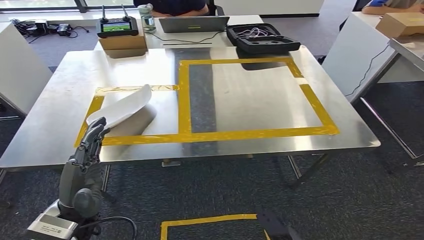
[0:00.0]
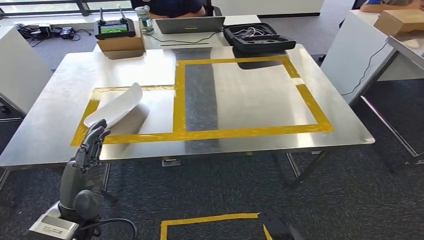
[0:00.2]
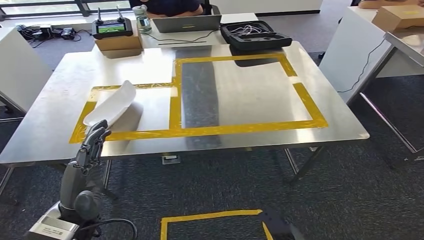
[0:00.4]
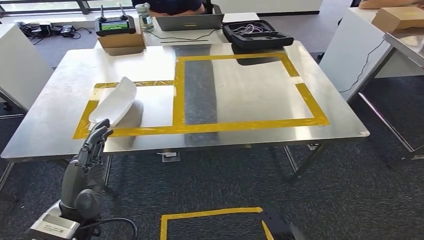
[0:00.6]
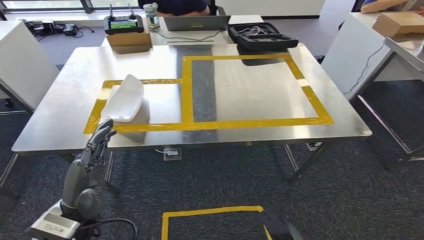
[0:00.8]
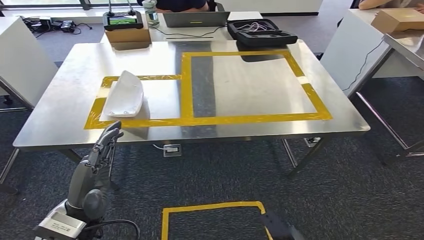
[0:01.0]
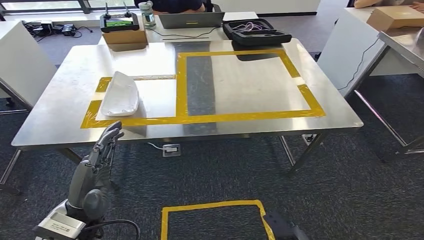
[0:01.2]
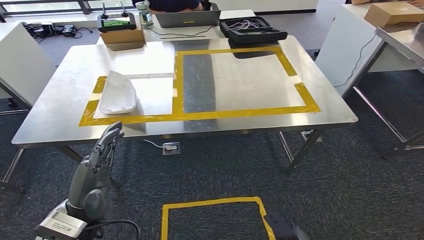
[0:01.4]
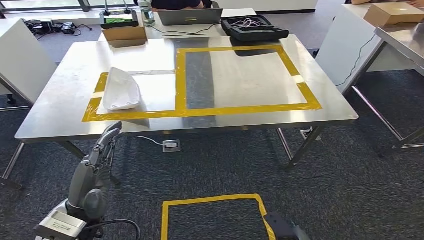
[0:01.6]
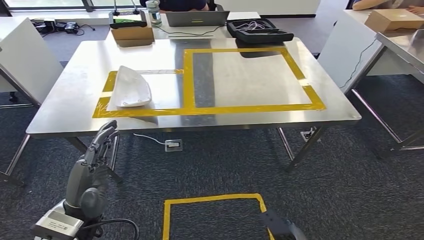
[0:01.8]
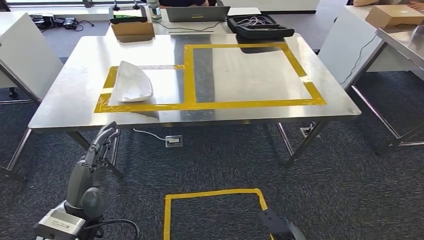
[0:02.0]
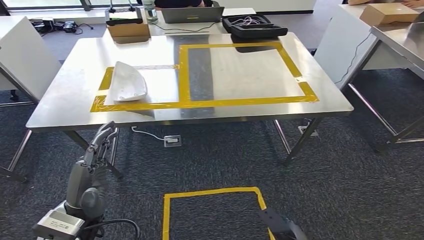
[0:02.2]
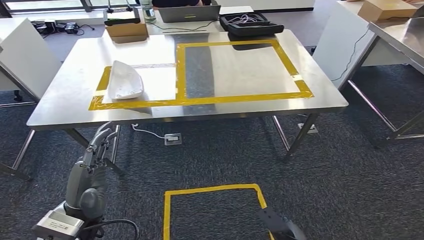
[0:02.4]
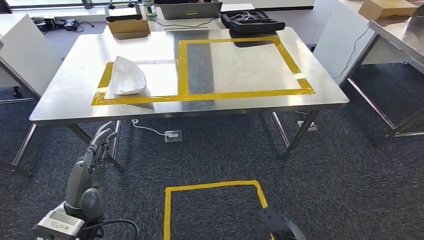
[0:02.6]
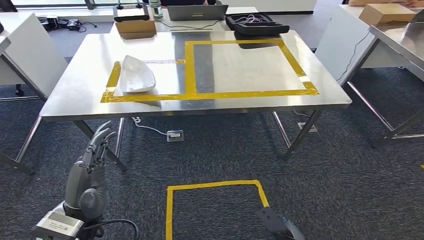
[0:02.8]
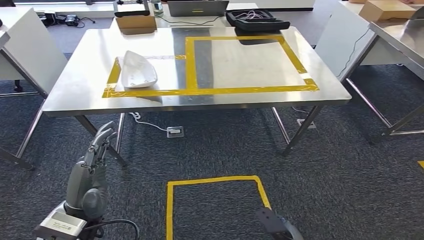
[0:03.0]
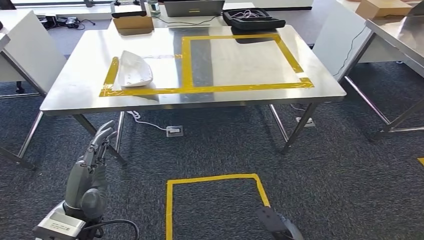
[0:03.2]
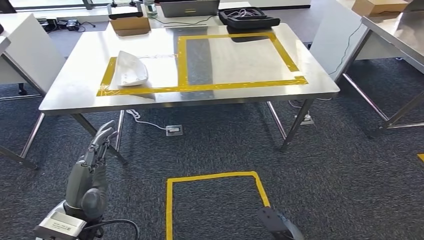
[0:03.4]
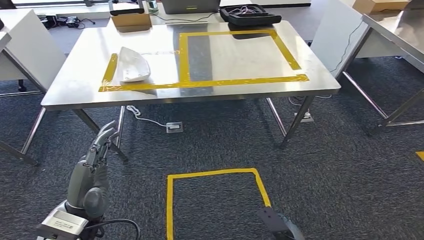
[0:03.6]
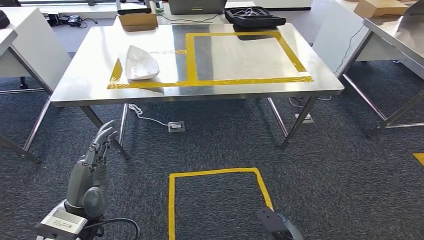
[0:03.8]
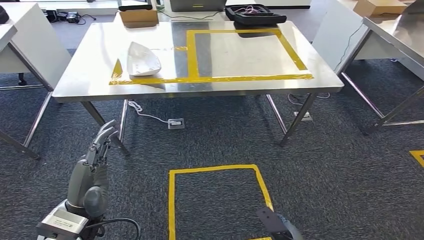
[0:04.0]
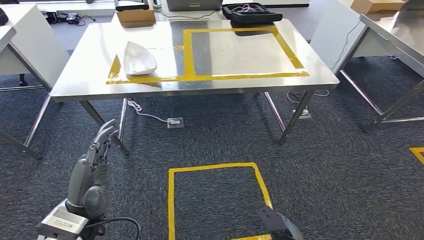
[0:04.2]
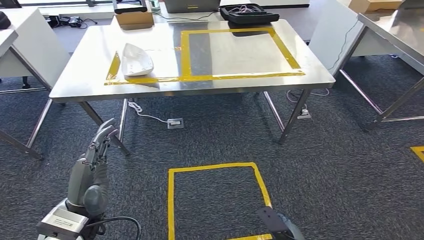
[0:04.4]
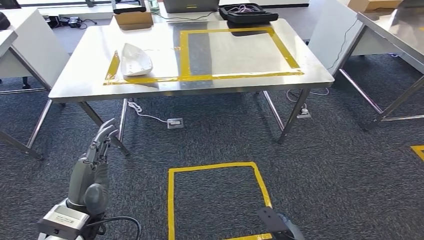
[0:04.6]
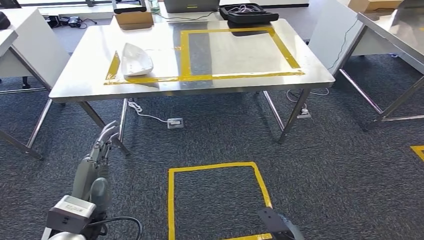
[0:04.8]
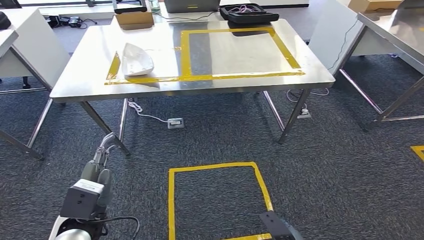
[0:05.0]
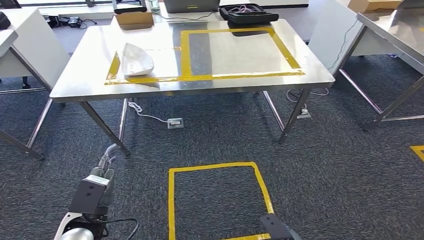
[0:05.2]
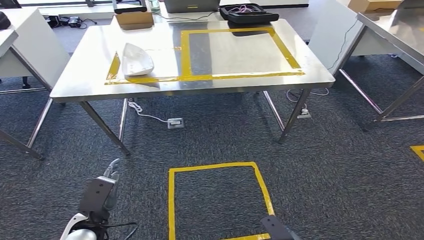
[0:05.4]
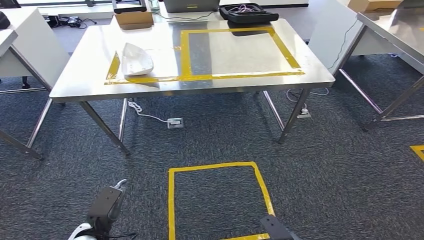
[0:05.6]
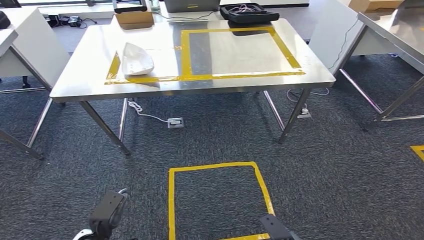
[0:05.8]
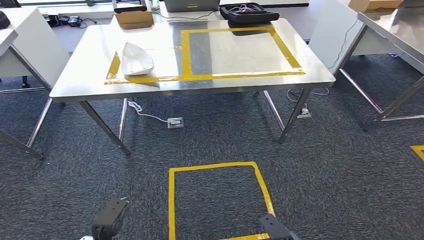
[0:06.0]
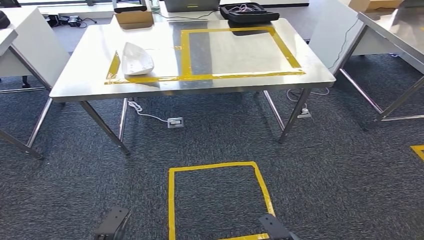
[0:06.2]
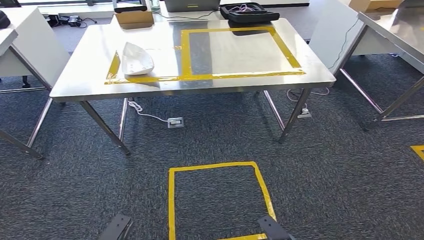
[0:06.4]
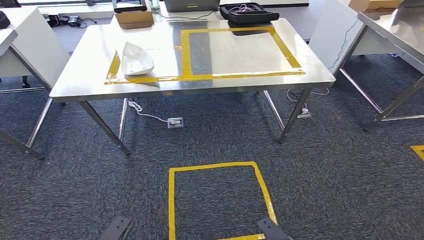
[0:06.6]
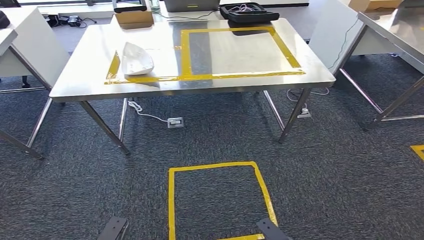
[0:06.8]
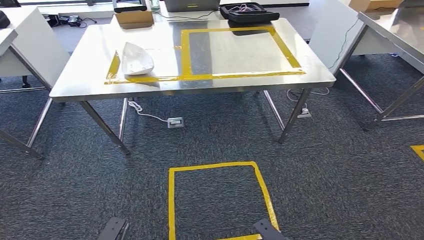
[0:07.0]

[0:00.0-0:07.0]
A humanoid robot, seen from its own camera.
Step, 0:00.0 to 0:07.0: Return to the initial position at the workbench.
0:04.2 to 0:05.6: The left hand shifts about 20 cm downward and to the left.
0:05.6 to 0:07.0: The left hand moves backward and downward, roughly 10 cm.
